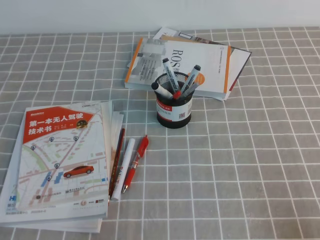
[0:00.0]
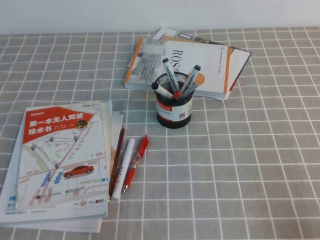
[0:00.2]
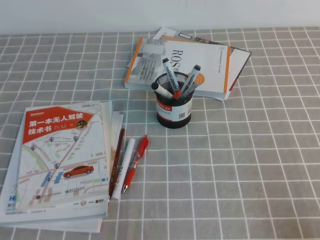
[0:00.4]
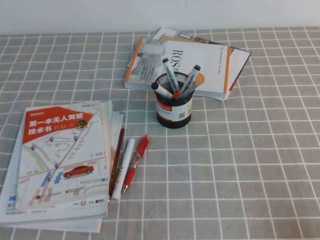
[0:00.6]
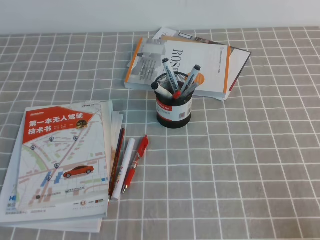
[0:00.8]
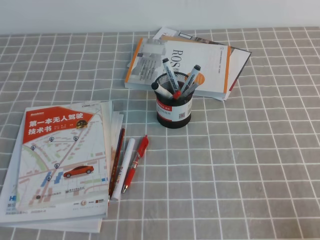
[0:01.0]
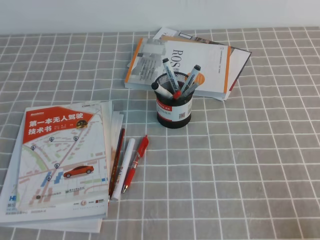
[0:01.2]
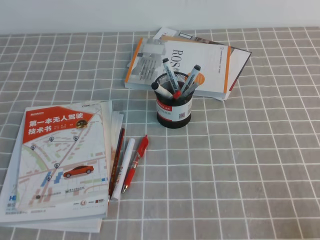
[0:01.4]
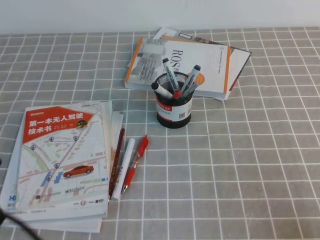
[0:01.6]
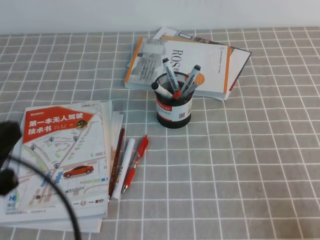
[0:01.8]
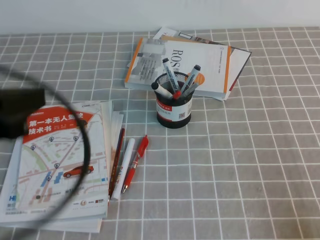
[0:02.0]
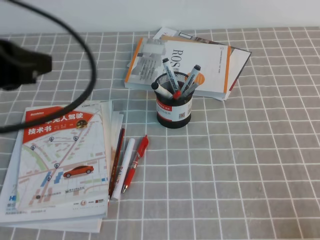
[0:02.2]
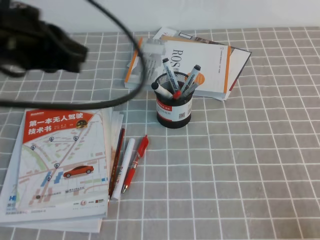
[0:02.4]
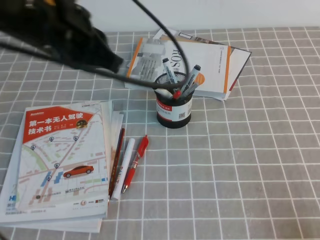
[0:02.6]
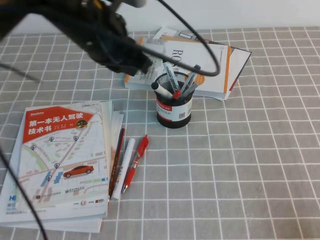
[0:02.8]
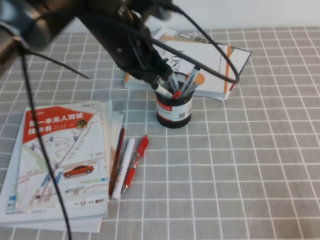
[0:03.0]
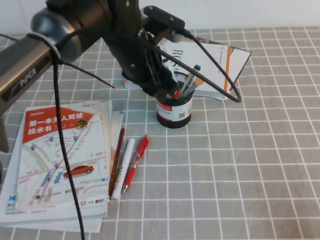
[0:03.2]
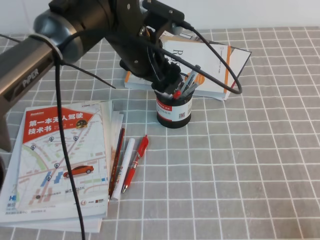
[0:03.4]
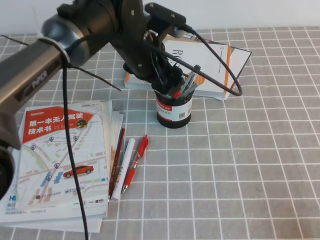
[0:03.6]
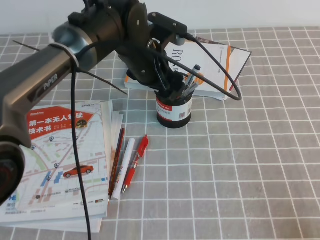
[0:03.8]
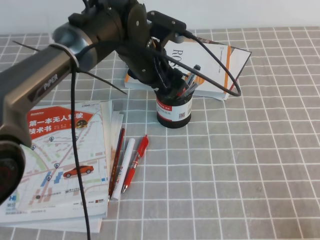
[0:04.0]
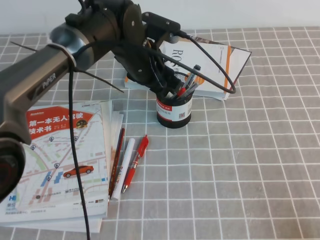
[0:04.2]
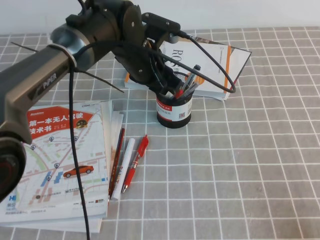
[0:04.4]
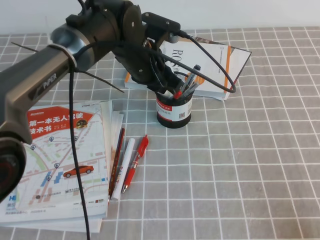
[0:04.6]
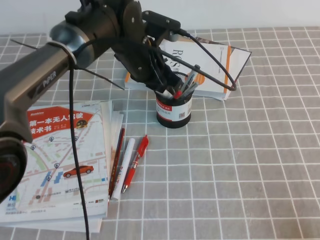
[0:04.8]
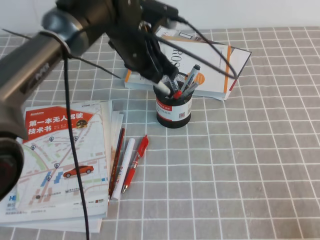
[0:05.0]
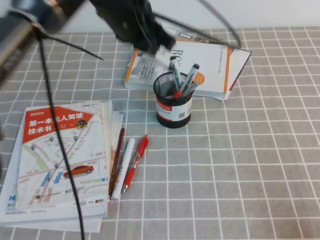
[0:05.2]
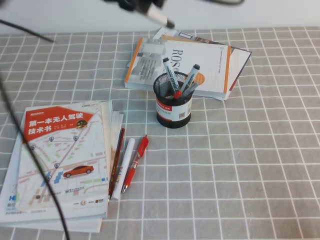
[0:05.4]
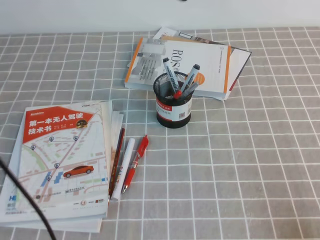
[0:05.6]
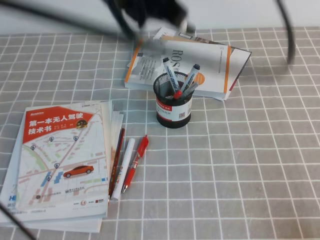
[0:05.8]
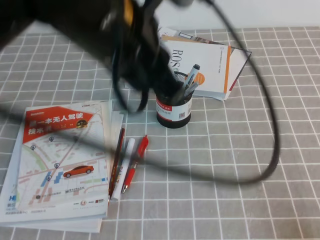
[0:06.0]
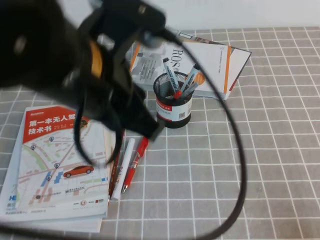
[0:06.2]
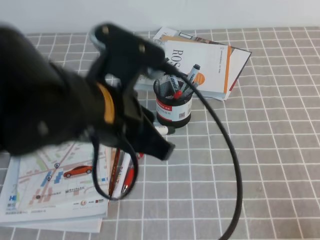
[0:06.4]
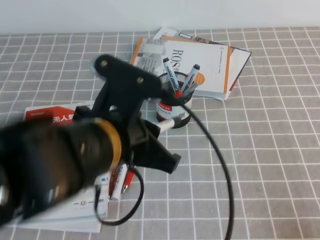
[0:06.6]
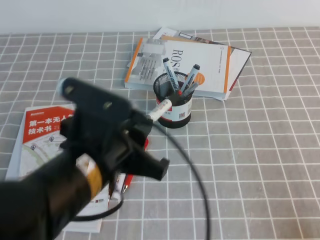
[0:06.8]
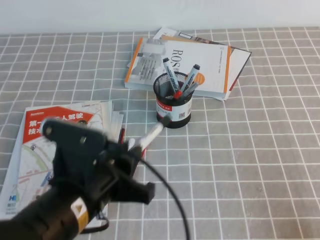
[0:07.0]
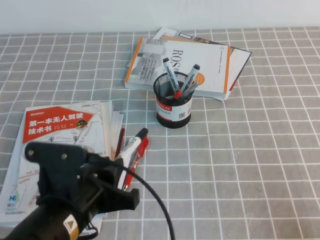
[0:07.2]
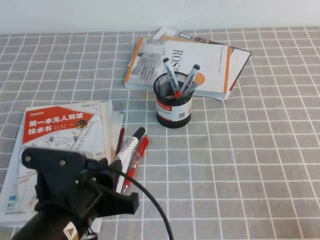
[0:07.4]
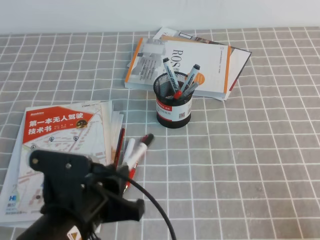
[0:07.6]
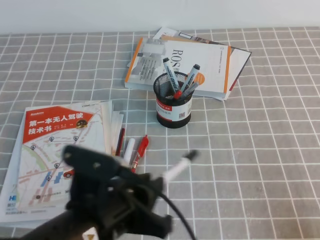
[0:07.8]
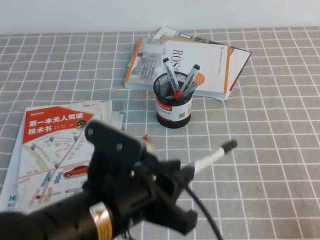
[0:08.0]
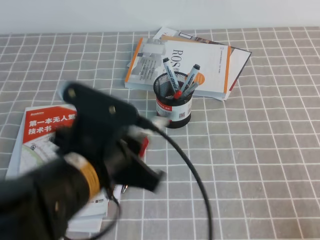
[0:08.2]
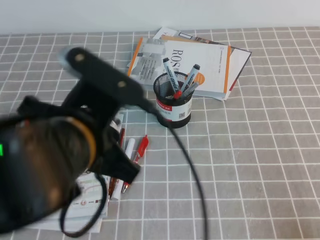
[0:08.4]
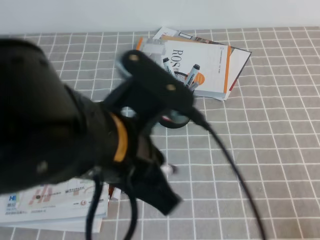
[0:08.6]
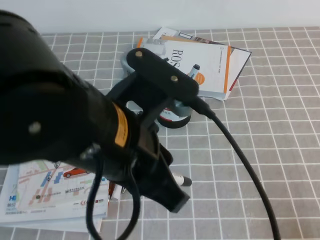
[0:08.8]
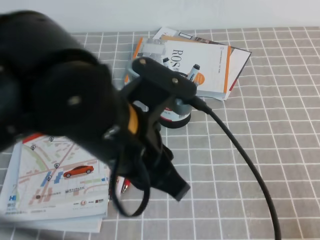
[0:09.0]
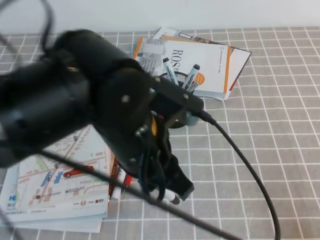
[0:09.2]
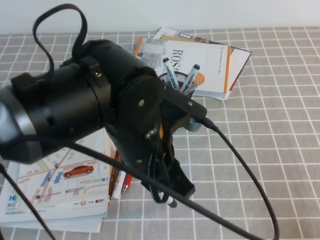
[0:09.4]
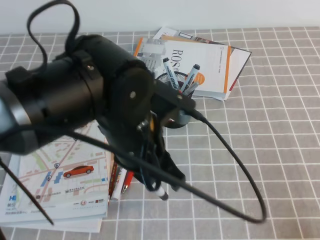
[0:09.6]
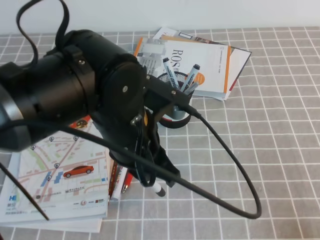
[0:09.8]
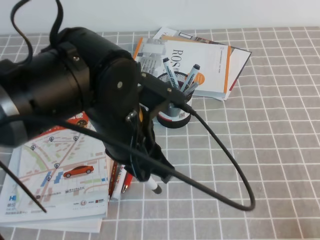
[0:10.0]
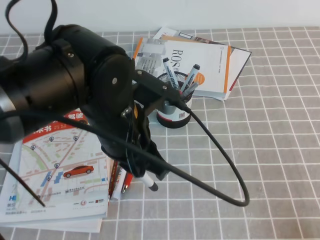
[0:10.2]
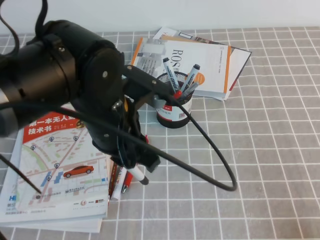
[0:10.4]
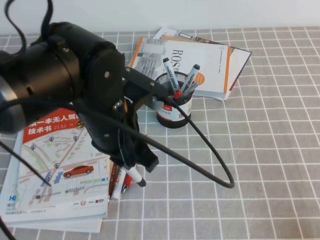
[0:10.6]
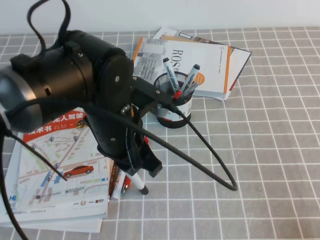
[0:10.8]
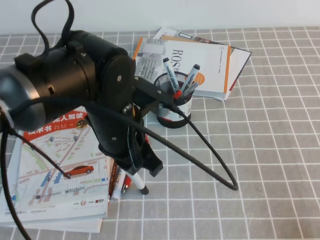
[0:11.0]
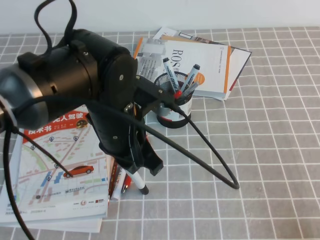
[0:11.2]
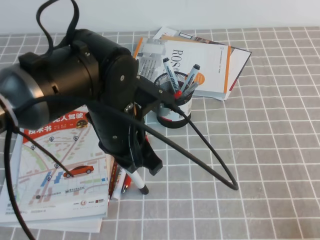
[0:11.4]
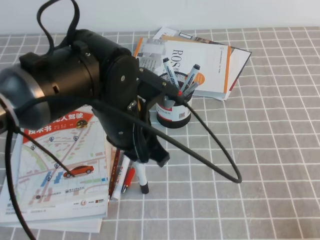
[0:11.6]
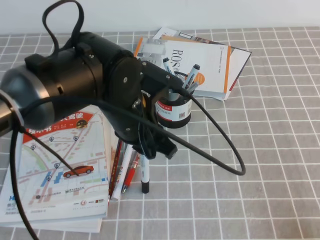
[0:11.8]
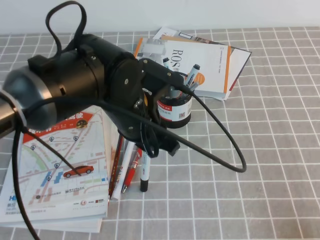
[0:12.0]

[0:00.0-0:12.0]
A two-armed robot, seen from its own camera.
0:00.0 to 0:01.6: The left gripper moves upward, some 10 cm.
0:01.6 to 0:03.0: The left gripper shifts some 35 cm forward and to the right.
0:03.0 to 0:04.4: The left gripper moves downward and forward, about 10 cm, and opens.
0:04.4 to 0:06.0: The left gripper heads backward and upward, covering about 25 cm.
0:06.0 to 0:07.6: The left gripper travels downward and backward by about 25 cm.
0:07.6 to 0:09.0: The left gripper is displaced upward and to the right by approximately 15 cm.
0:09.0 to 0:10.4: The left gripper shifts approximately 10 cm forward and downward.

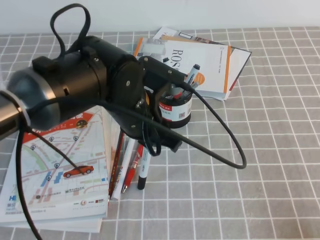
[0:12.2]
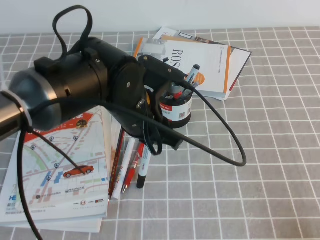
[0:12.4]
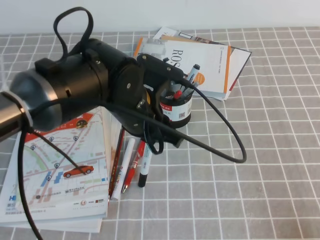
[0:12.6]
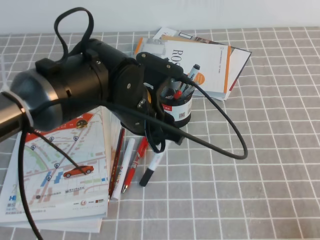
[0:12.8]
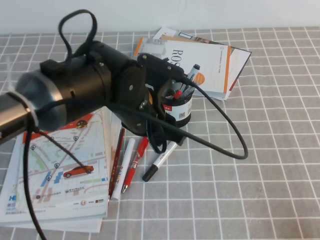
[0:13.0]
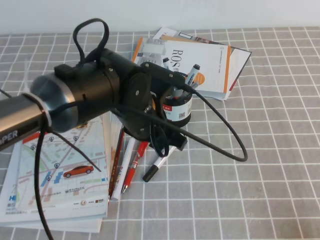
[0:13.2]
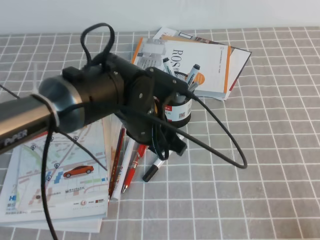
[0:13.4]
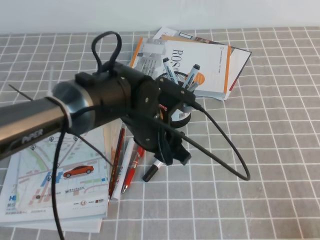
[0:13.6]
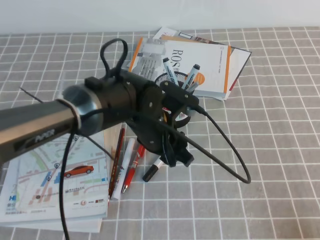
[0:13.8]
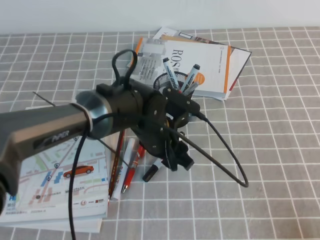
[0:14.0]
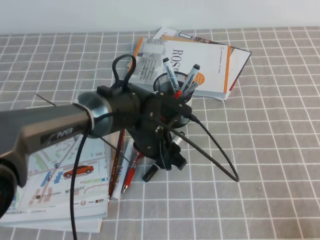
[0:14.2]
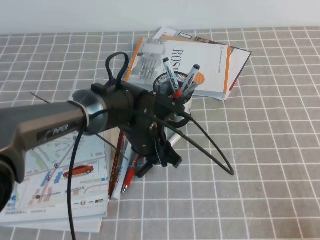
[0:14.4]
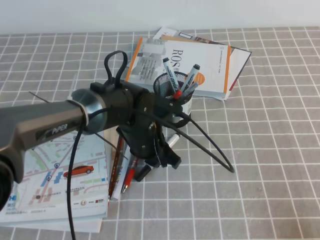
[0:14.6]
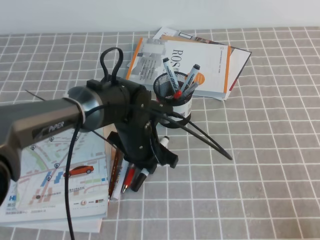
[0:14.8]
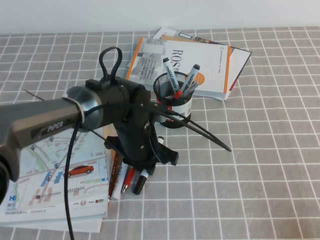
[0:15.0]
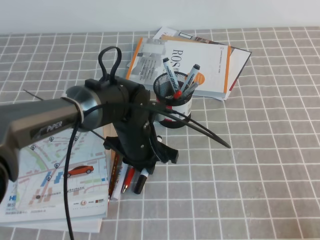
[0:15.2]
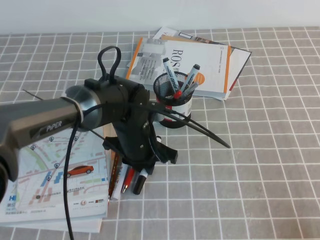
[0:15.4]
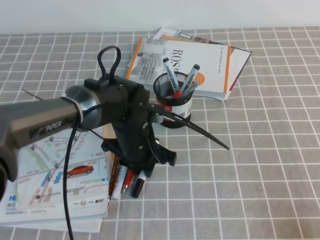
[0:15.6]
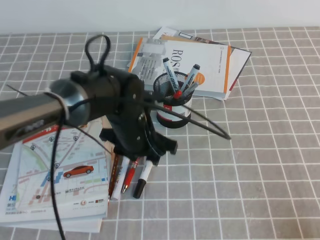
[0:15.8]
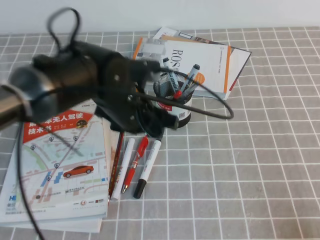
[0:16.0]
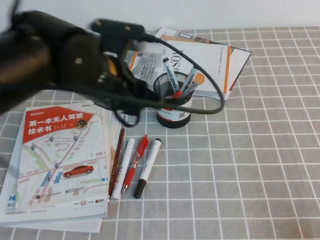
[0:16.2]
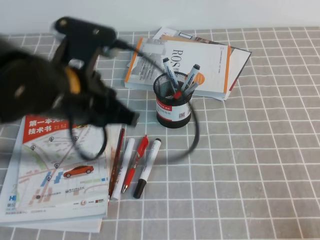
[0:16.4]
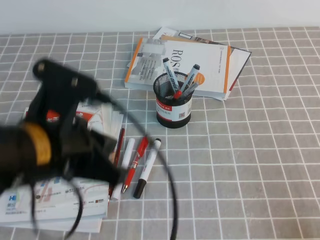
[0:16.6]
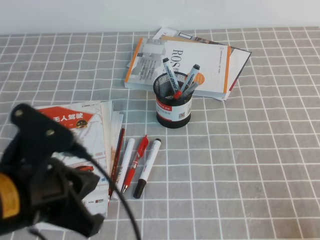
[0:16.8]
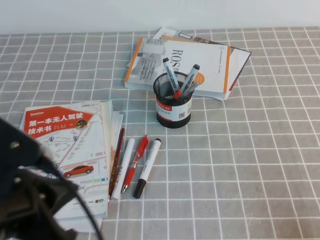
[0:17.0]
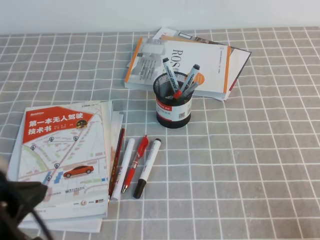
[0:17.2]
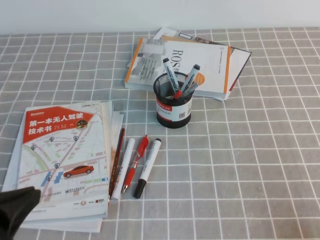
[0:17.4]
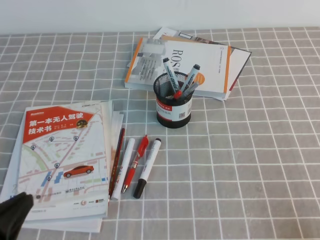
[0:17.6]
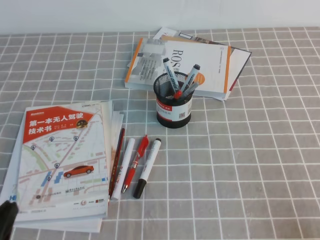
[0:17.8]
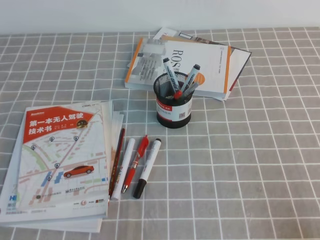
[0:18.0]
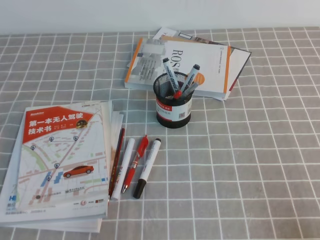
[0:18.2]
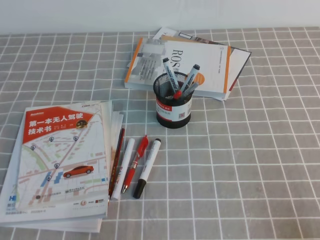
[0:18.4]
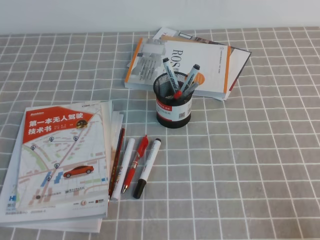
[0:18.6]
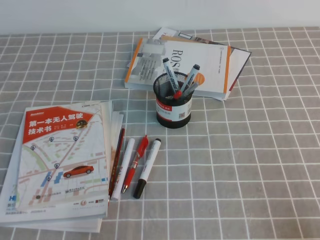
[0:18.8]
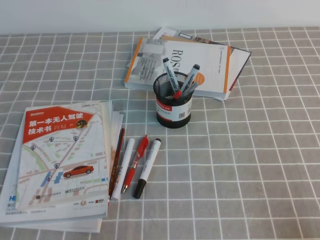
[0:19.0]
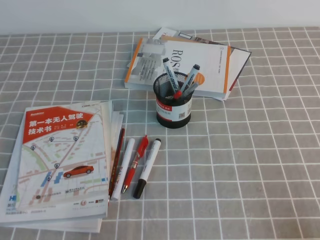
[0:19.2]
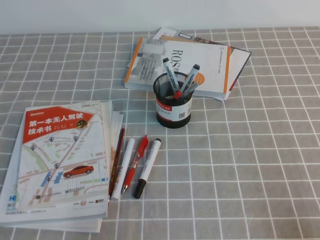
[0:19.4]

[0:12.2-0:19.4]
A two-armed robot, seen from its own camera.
Step, 0:12.2 to 0:16.0: Pick up the pen from the pen holder.
Step, 0:16.2 to 0:19.4: Place the pen on the table.
0:12.2 to 0:13.6: The left gripper moves roughly 5 cm.
0:13.6 to 0:15.0: The left gripper heads downward, covering some 5 cm.
0:15.0 to 0:16.6: The left gripper goes some 25 cm upward, backward and to the left, and opens, then closes once more.
0:16.6 to 0:18.0: The left gripper travels downward, to the left and backward by some 25 cm.

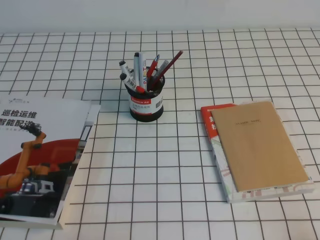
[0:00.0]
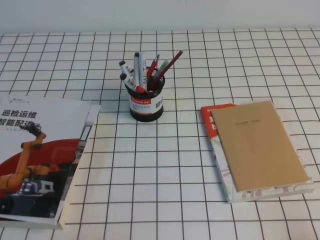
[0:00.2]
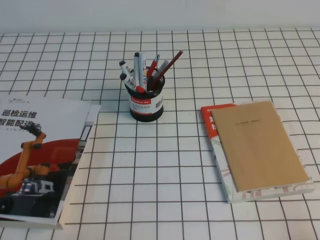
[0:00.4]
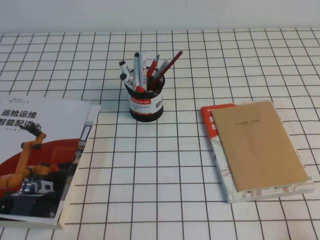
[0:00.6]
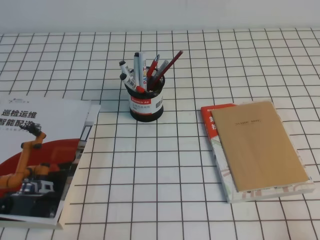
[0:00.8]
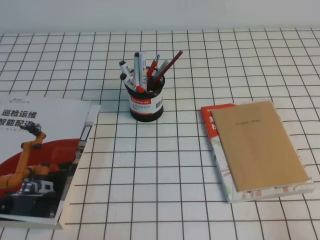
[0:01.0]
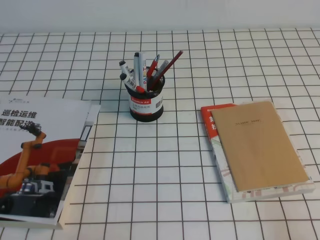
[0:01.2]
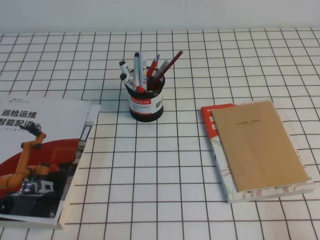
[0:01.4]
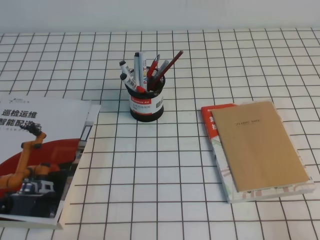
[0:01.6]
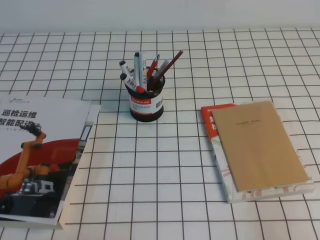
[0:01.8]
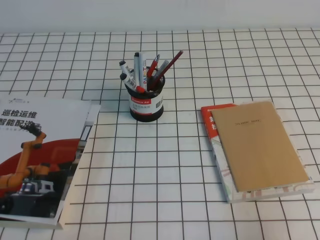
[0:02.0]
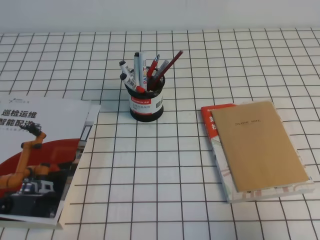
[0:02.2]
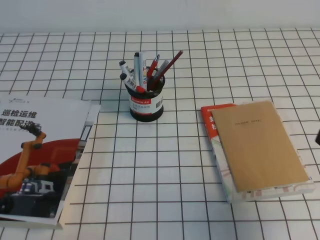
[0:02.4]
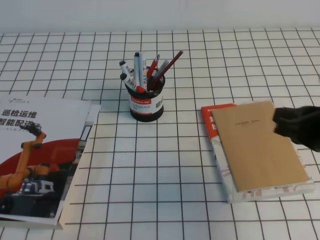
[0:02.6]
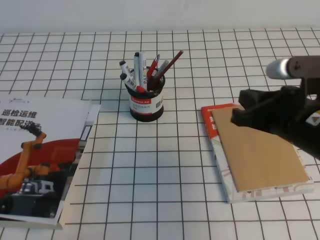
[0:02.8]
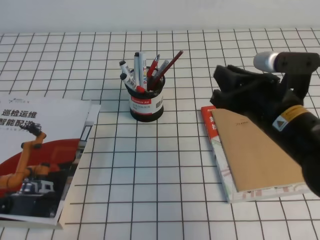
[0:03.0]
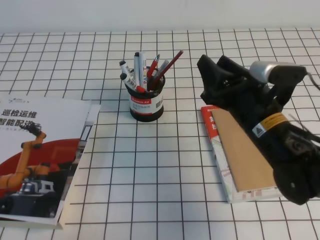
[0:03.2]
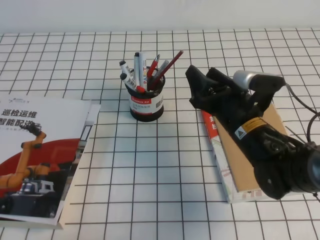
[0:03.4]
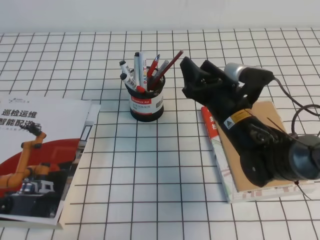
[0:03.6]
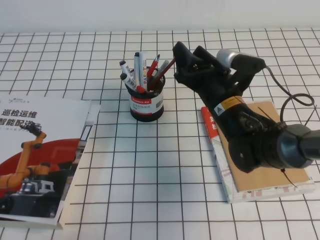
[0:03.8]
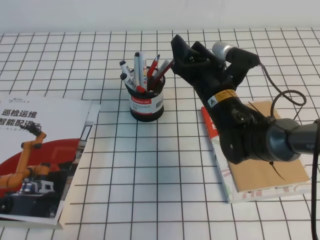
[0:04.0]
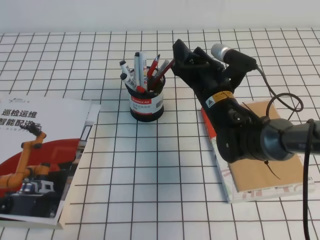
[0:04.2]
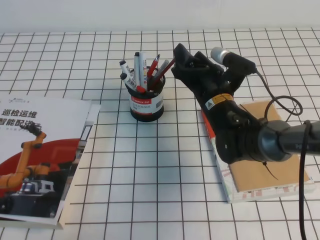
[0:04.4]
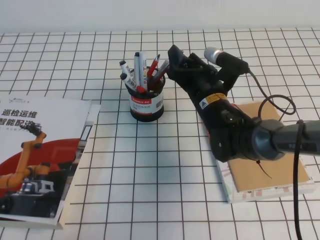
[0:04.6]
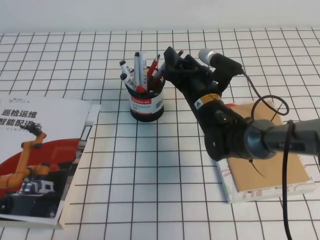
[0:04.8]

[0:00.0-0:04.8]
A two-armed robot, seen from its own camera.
0:01.6 to 0:03.2: The right gripper travels forward and to the left by roughly 30 cm, and opens.
0:03.2 to 0:04.8: The right gripper travels forward, to the left and downward by some 15 cm.
